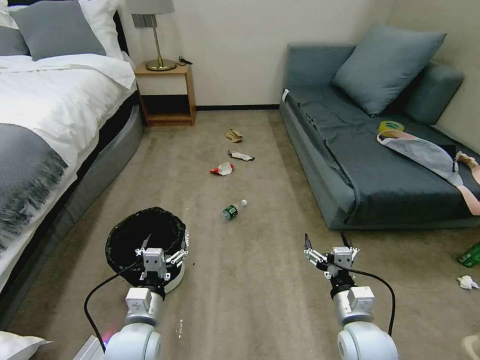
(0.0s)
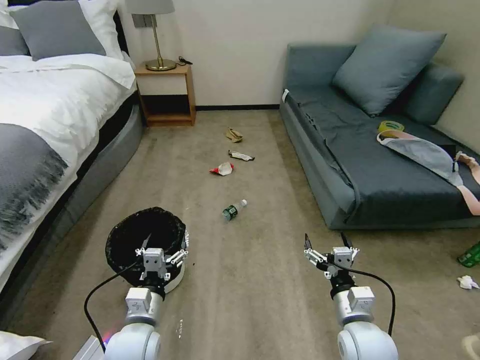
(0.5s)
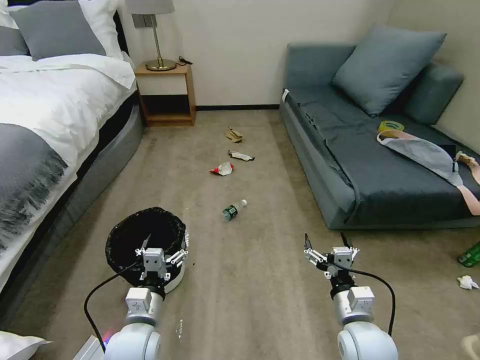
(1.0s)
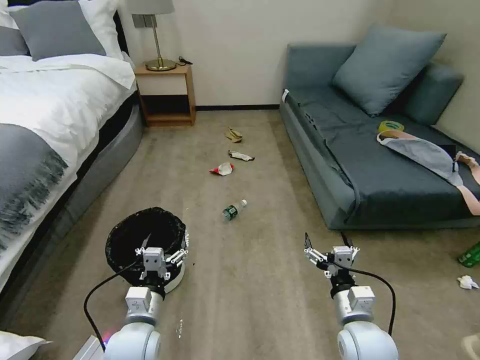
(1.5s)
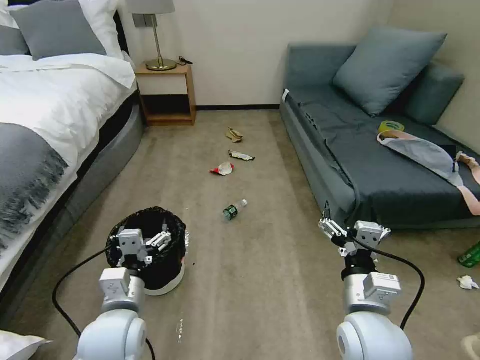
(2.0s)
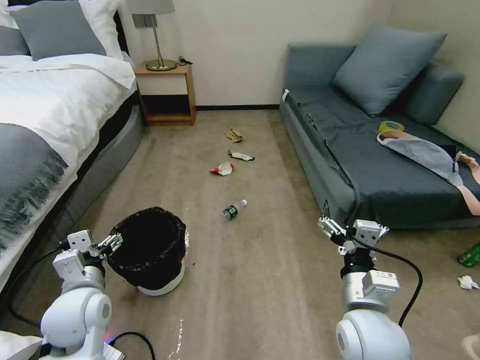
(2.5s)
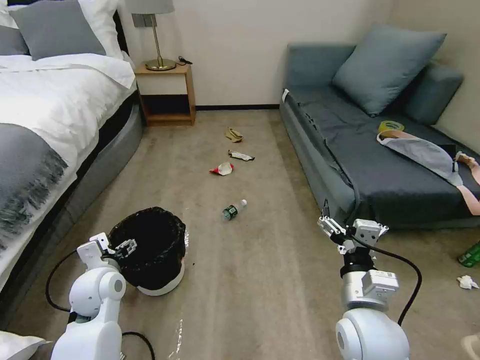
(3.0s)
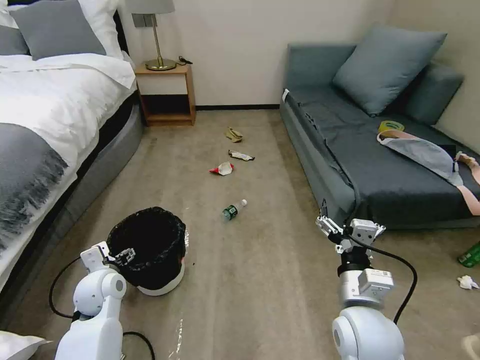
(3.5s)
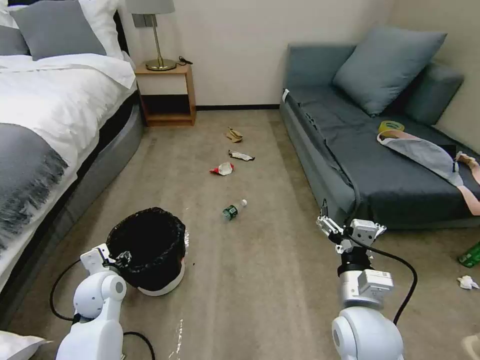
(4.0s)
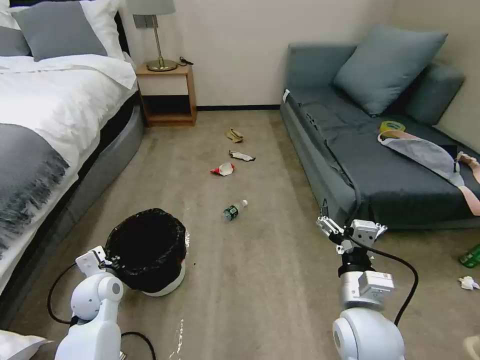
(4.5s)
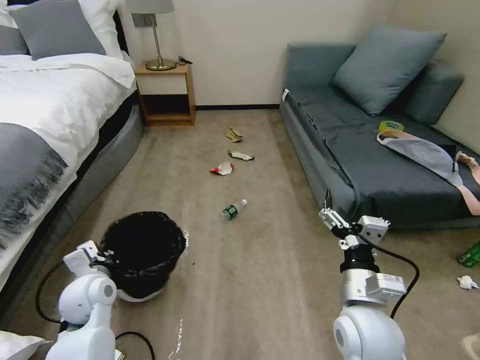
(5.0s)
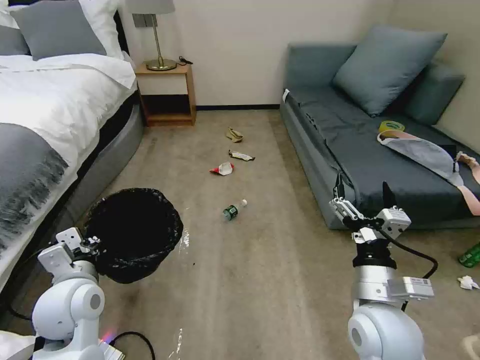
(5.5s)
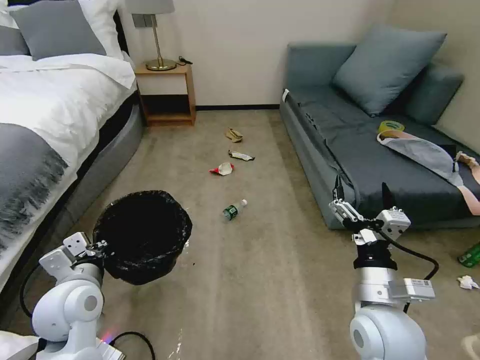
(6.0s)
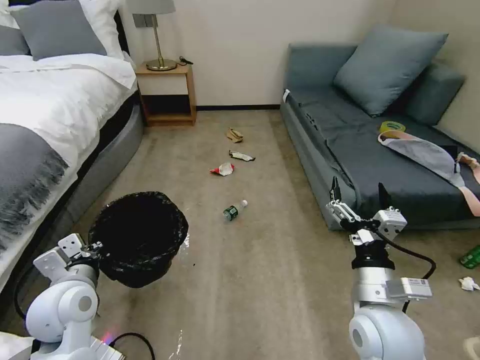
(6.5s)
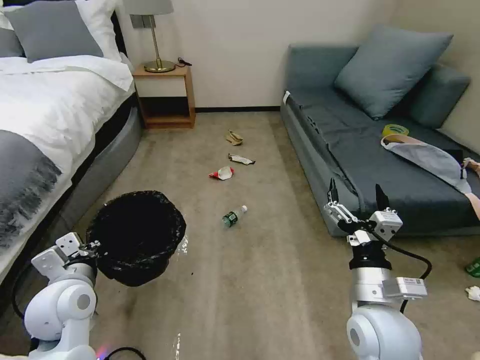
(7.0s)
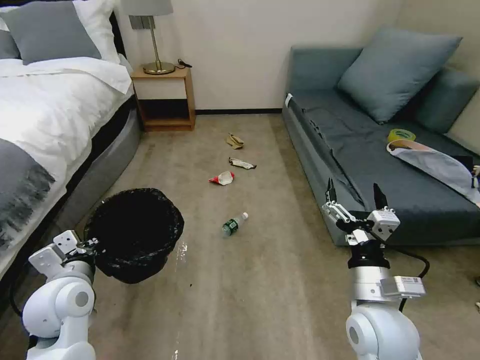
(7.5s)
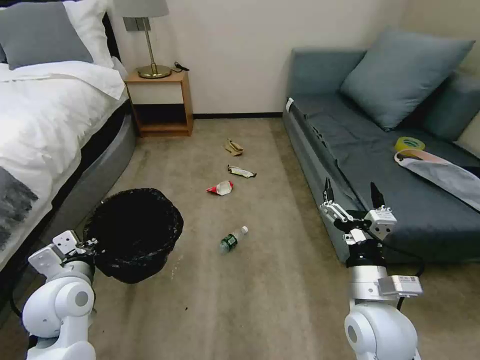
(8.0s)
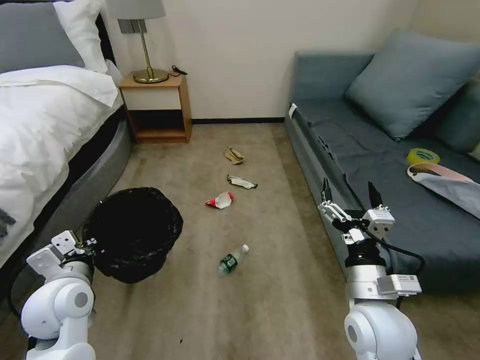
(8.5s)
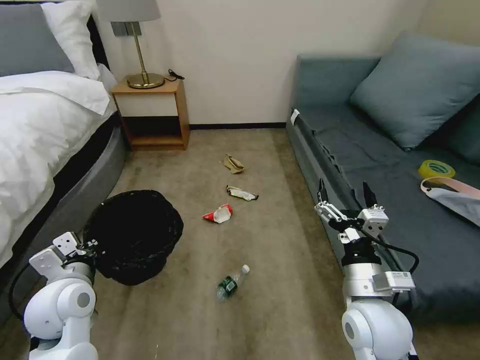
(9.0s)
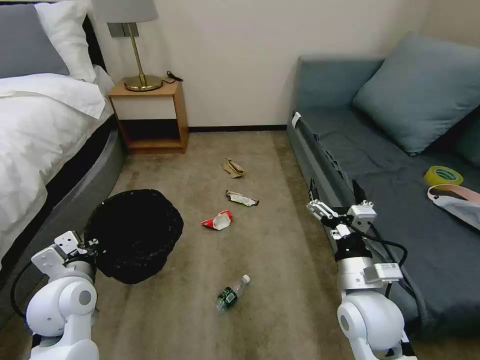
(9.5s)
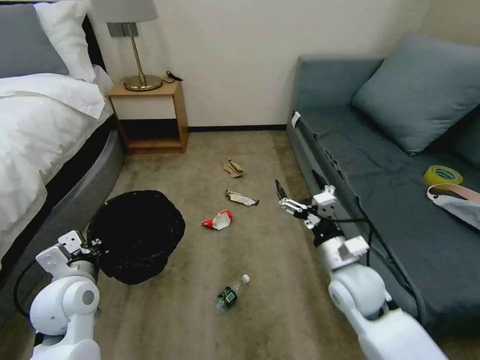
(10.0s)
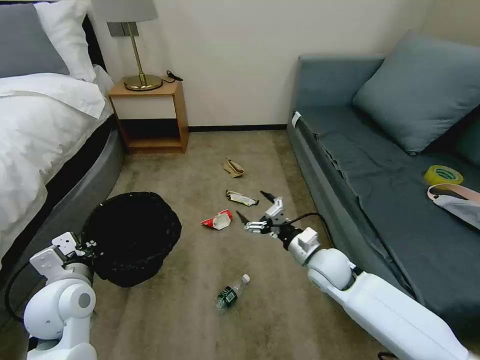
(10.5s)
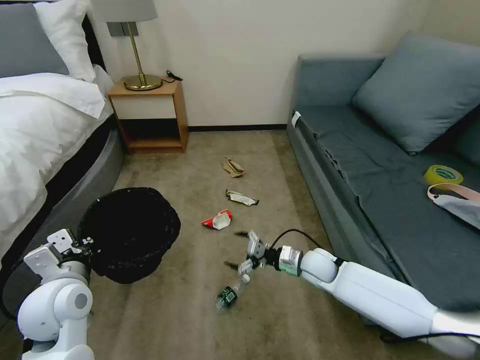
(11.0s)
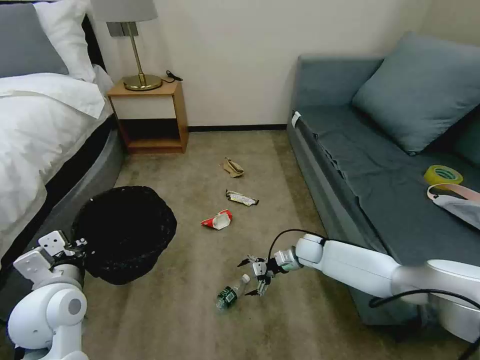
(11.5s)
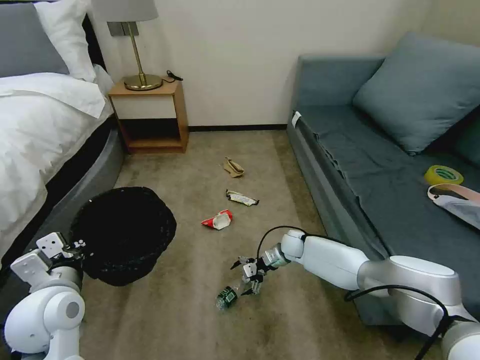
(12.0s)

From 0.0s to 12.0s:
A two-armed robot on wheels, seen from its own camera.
Task of the whole recording: Pick up the trash bin, then pick up the garbage on the floor and place it into the trash bin.
From 2.0s to 4.0s: The left gripper heads forward, to the left and downward, covering about 15 cm, and closes.
From 4.0s to 6.0s: The left gripper moves upward and backward, roughly 10 cm, and closes its fingers.
From 8.0s to 10.0s: The right gripper moves forward, some 10 cm.
From 10.0s to 12.0s: The right gripper is displaced forward and downward by some 30 cm.

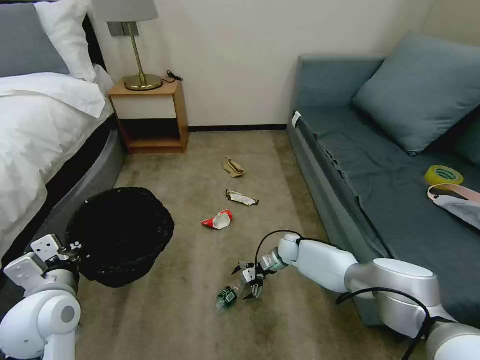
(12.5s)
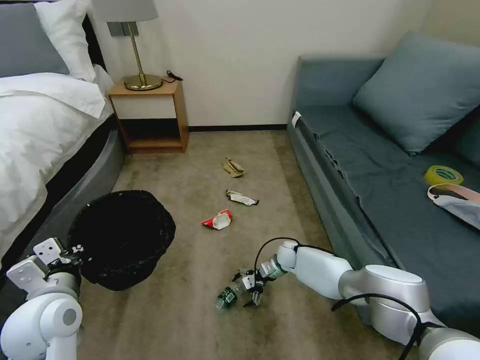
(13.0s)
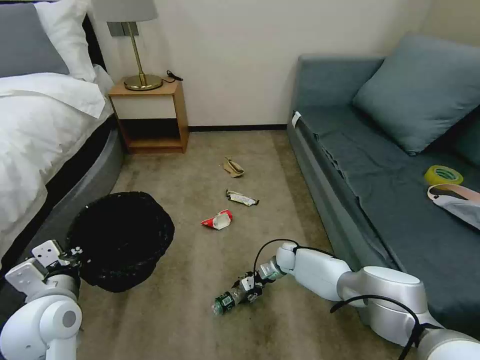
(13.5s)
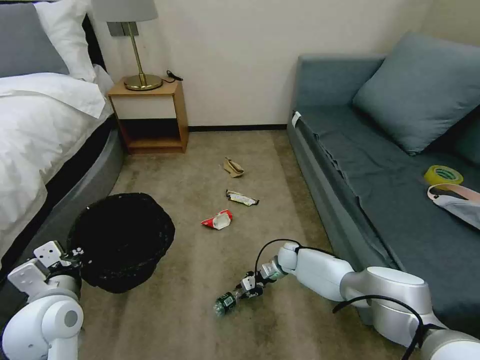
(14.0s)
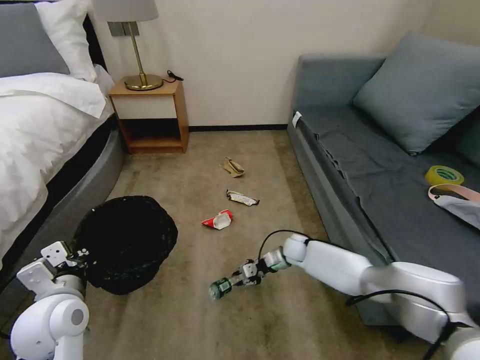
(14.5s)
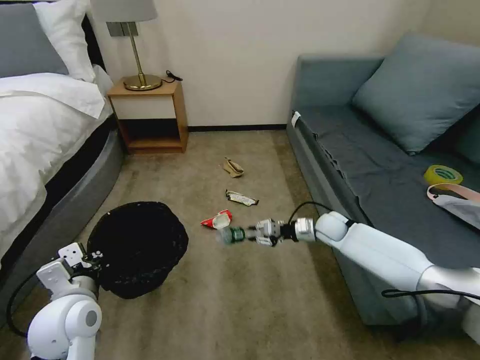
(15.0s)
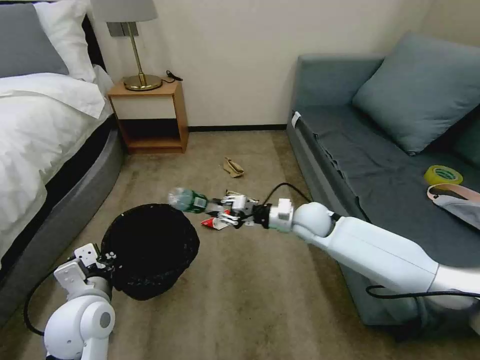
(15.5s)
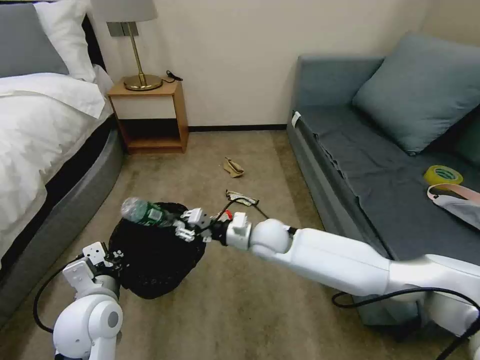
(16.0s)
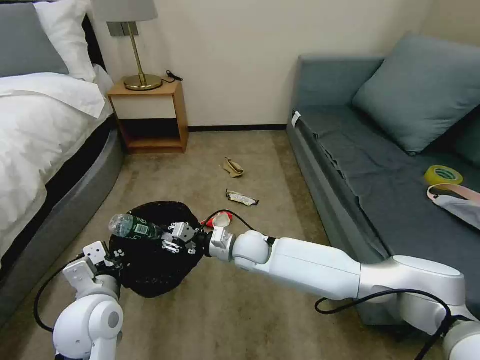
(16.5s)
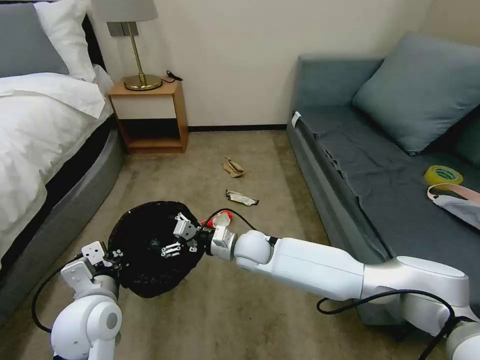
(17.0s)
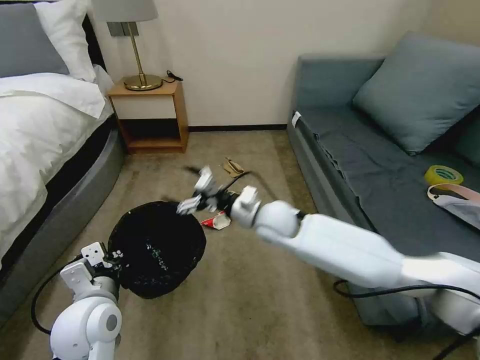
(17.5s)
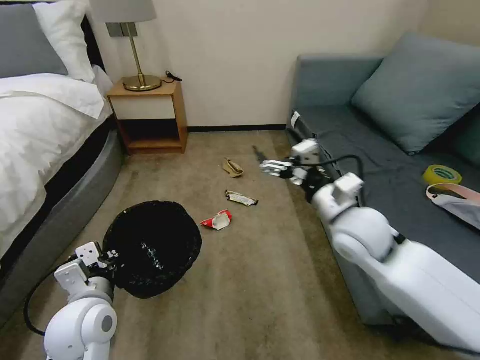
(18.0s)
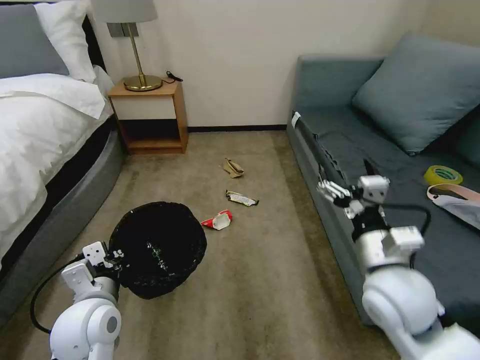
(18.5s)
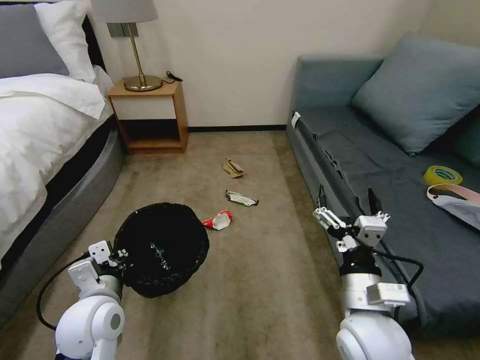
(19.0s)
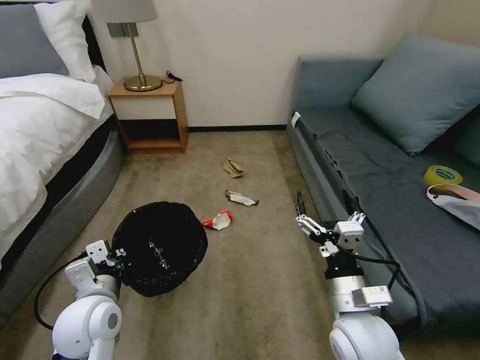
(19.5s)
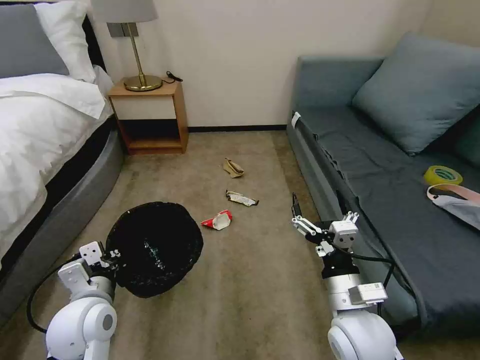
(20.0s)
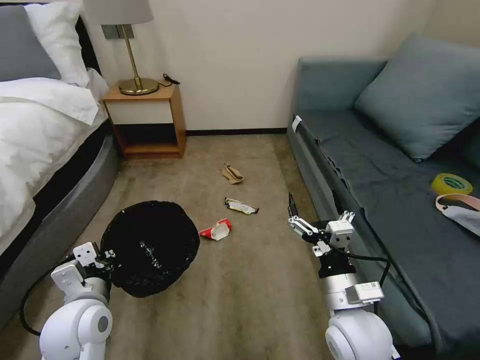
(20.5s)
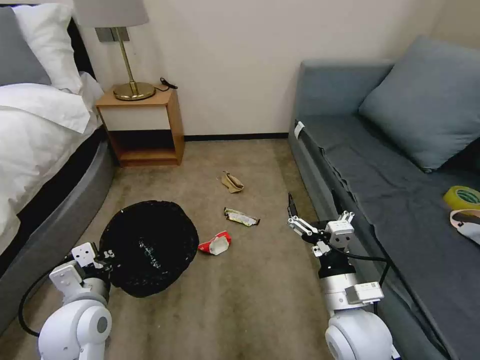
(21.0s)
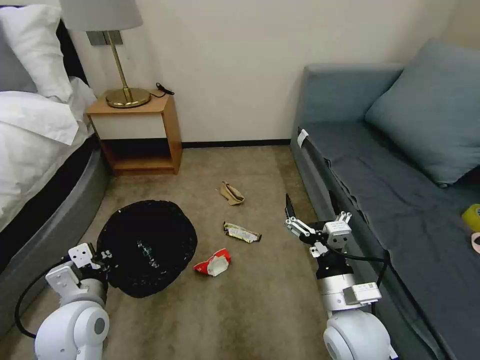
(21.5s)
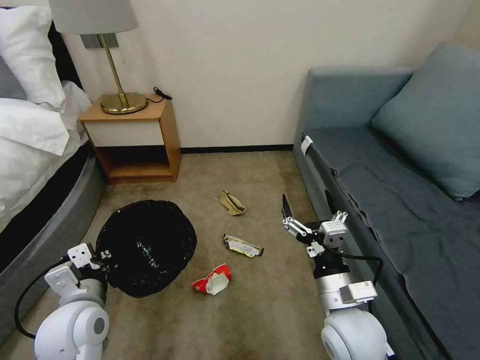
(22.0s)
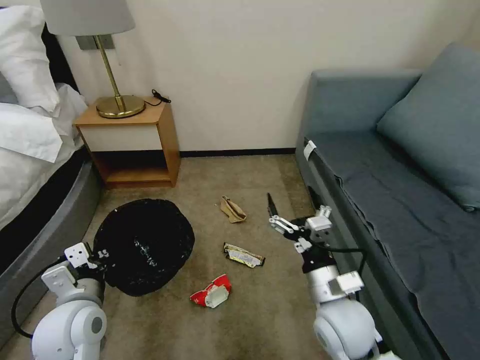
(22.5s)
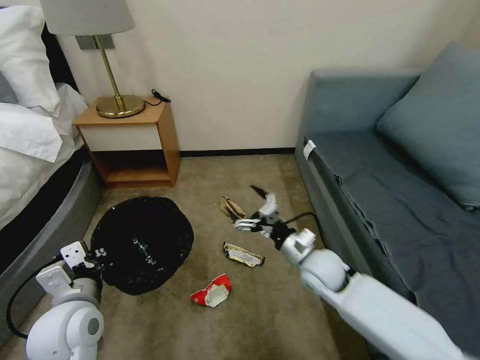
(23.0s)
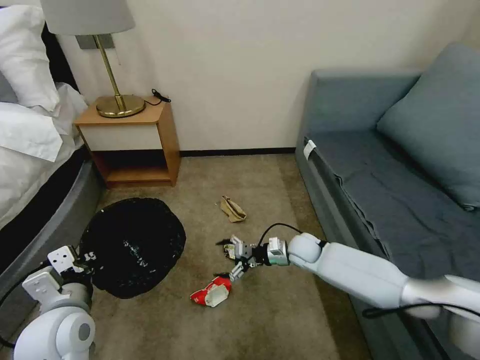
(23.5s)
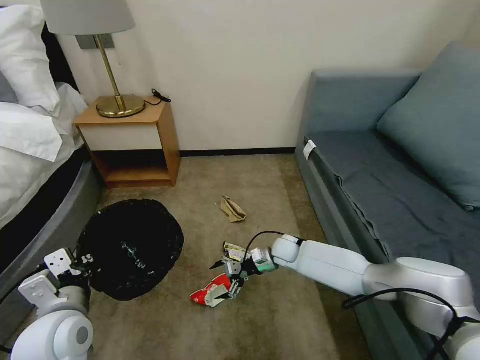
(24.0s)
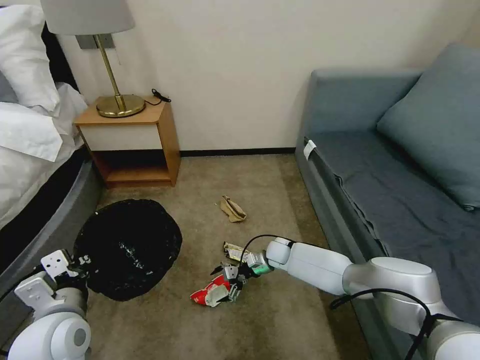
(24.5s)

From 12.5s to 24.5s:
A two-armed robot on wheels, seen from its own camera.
Task of the whole recording: Pick up the trash bin, then pick up the garbage on the floor and place it into the trash bin.
From 12.5s to 14.5s: The right gripper closes.
From 14.5s to 16.5s: The right gripper shifts about 25 cm to the left, upward and backward, while the left gripper moves to the right, some 5 cm.
From 16.5s to 18.5s: The right gripper is displaced to the right, upward and backward by some 30 cm, and opens its fingers.
From 18.5s to 20.5s: The right gripper heads downward, backward and to the left, covering some 10 cm.
From 22.5s to 24.5s: The right gripper shifts about 30 cm forward and downward.

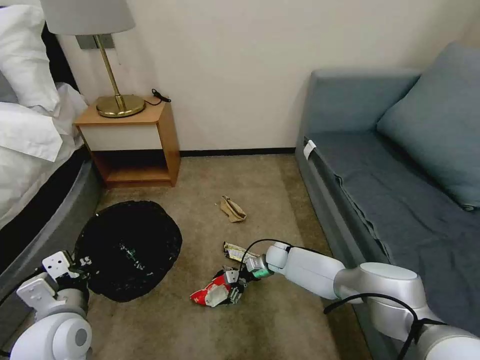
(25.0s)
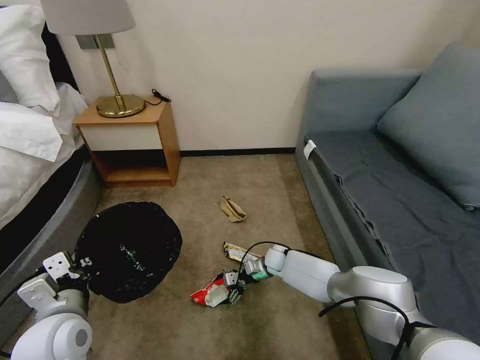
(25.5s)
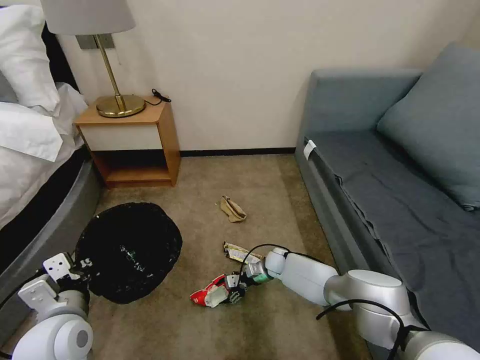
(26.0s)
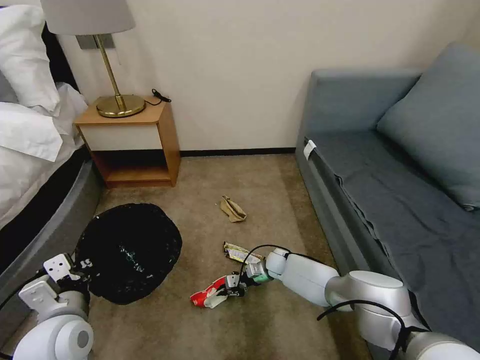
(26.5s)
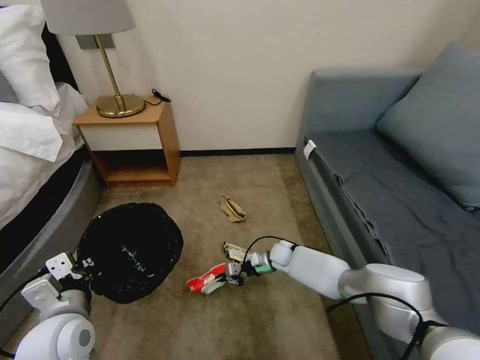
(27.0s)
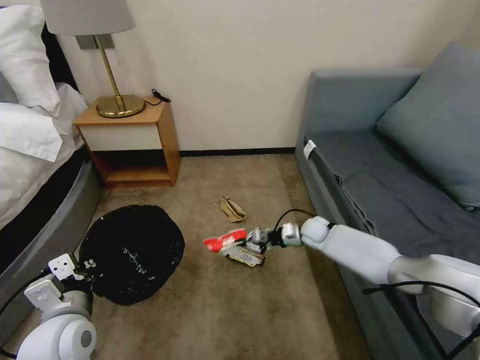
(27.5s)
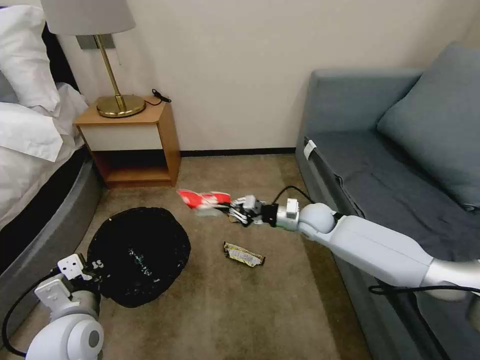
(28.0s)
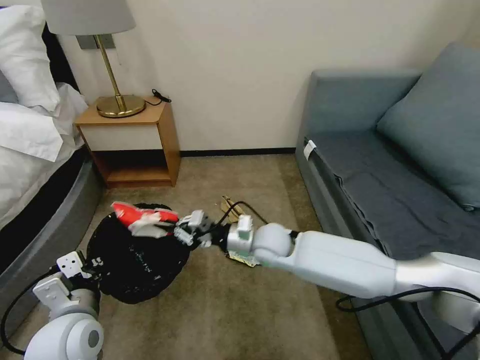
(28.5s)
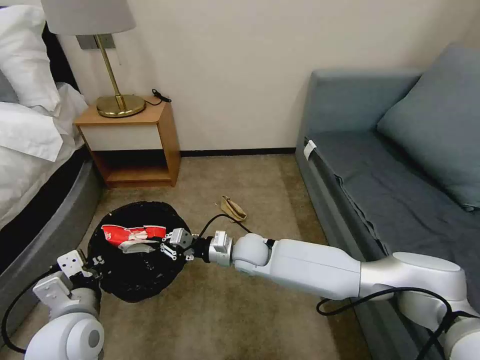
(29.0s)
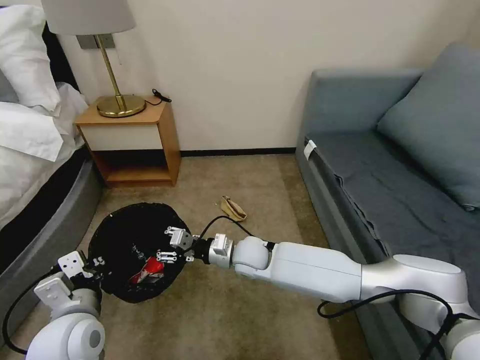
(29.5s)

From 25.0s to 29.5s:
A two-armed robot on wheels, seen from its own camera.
Task of the whole recording: Pick up the trash bin, then pick up the garbage on the floor and place it into the trash bin.
From 25.0s to 27.0s: The right gripper closes its fingers.
From 27.0s to 29.5s: The right gripper is displaced upward, to the left and backward by some 20 cm, and opens up.
